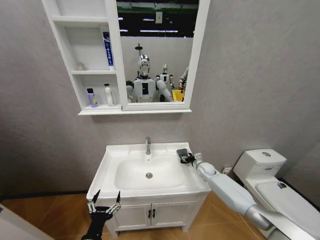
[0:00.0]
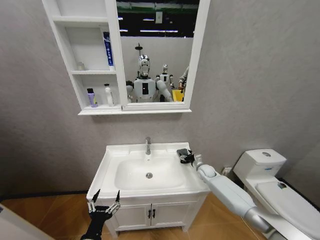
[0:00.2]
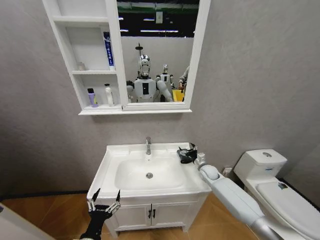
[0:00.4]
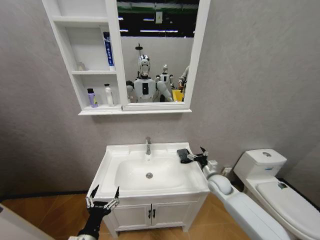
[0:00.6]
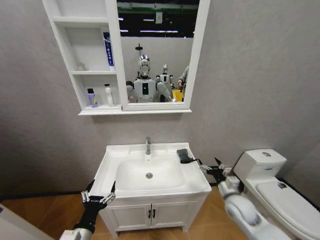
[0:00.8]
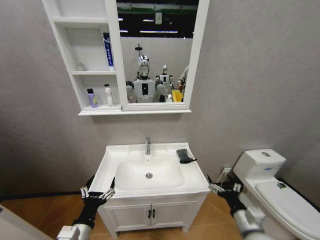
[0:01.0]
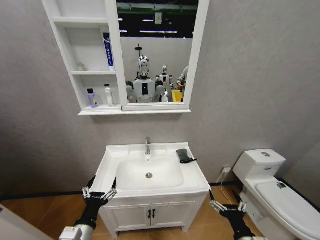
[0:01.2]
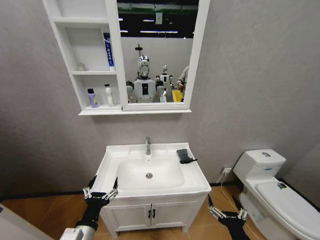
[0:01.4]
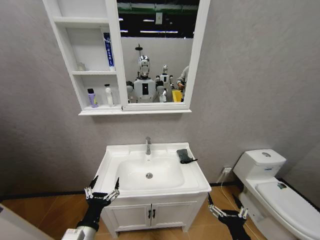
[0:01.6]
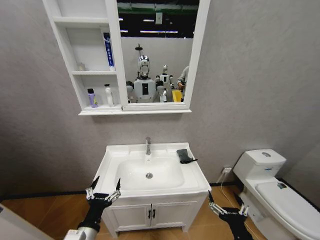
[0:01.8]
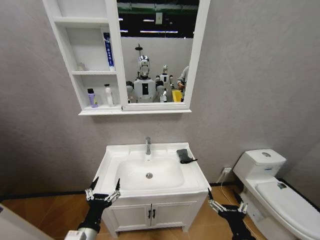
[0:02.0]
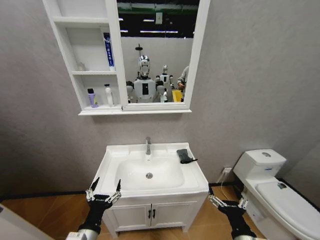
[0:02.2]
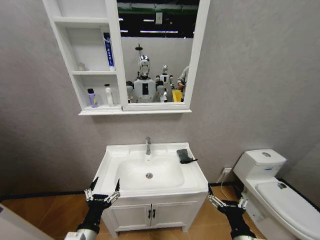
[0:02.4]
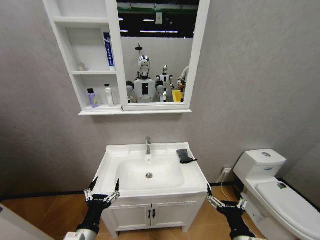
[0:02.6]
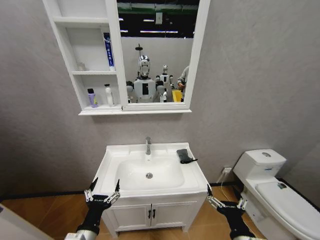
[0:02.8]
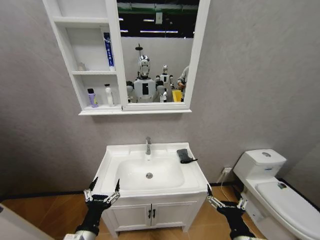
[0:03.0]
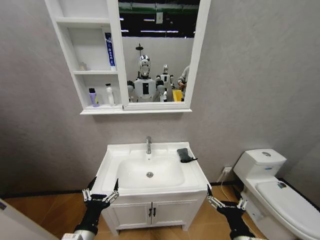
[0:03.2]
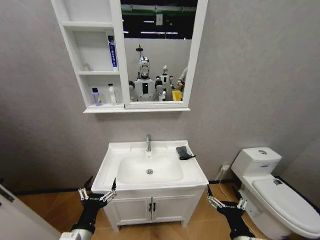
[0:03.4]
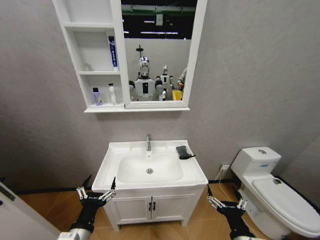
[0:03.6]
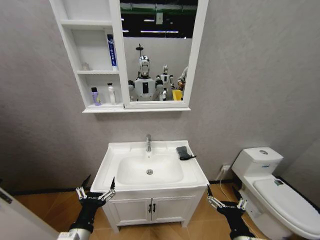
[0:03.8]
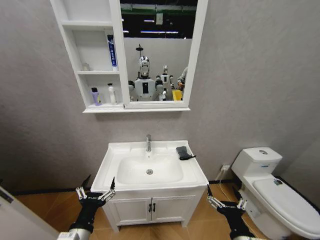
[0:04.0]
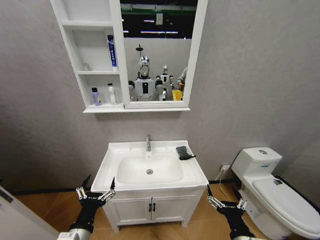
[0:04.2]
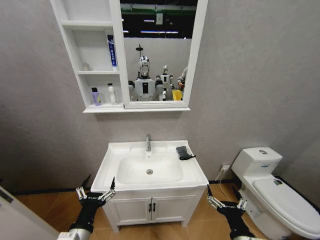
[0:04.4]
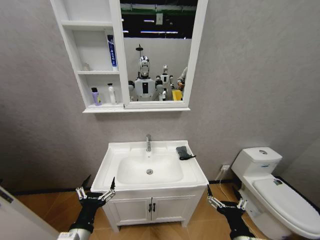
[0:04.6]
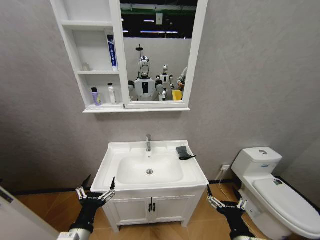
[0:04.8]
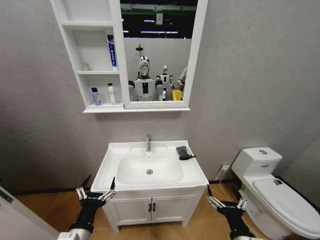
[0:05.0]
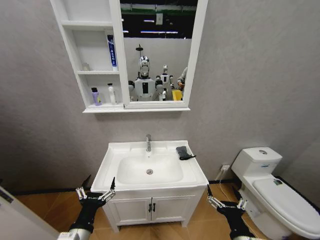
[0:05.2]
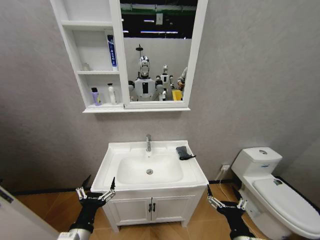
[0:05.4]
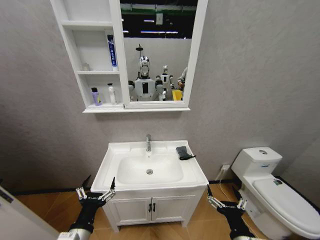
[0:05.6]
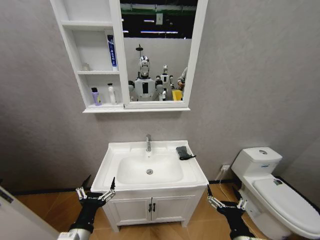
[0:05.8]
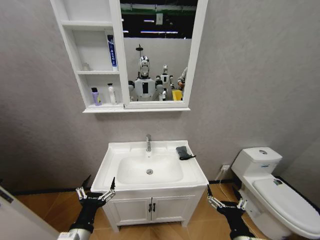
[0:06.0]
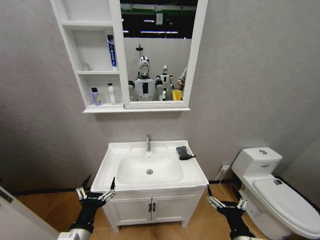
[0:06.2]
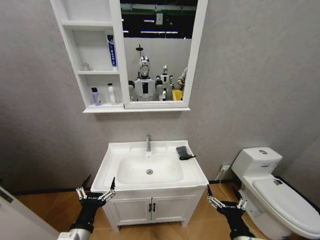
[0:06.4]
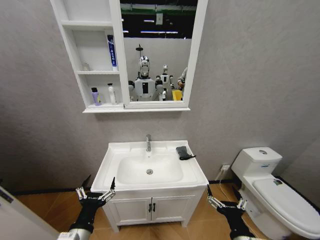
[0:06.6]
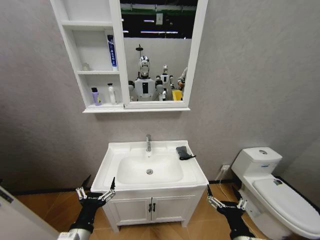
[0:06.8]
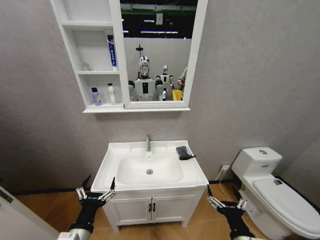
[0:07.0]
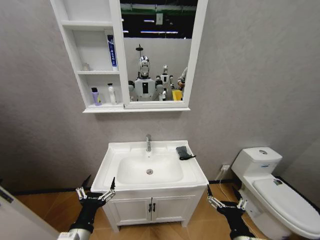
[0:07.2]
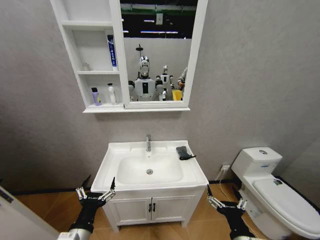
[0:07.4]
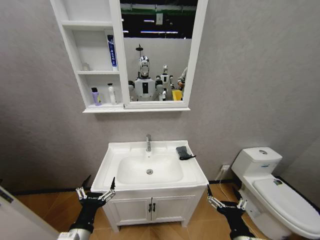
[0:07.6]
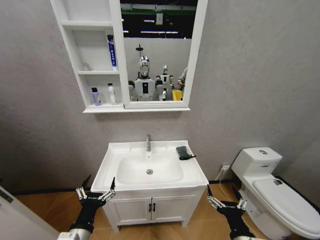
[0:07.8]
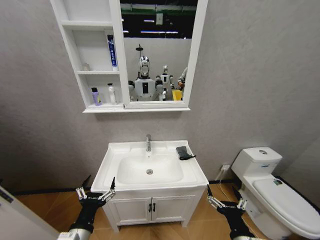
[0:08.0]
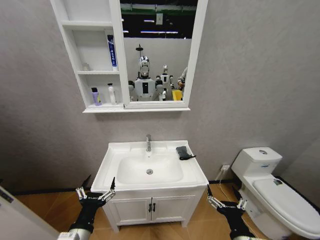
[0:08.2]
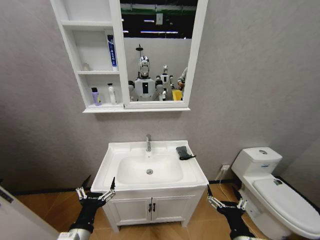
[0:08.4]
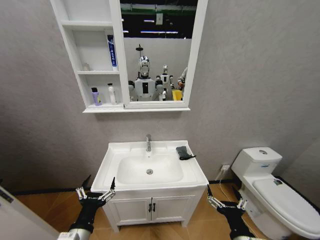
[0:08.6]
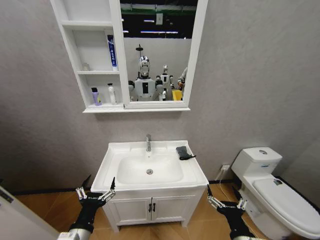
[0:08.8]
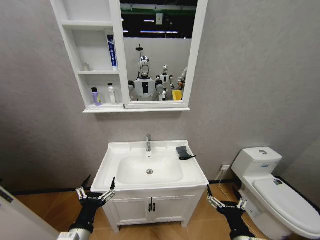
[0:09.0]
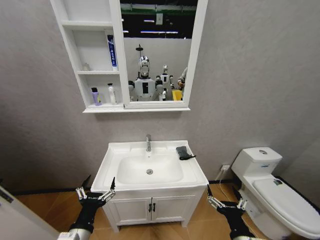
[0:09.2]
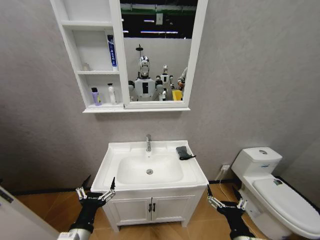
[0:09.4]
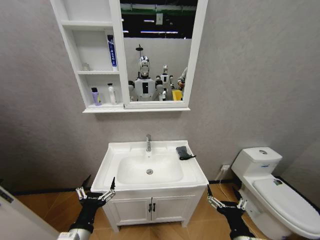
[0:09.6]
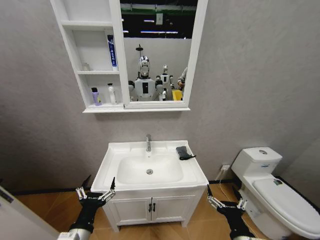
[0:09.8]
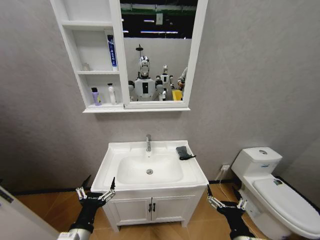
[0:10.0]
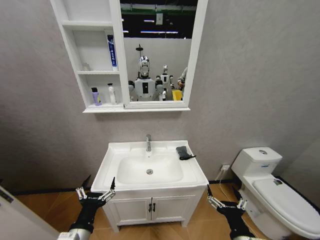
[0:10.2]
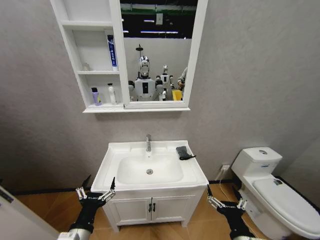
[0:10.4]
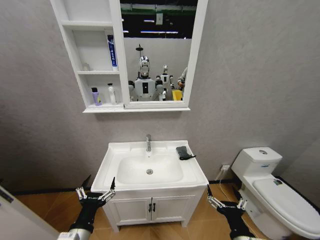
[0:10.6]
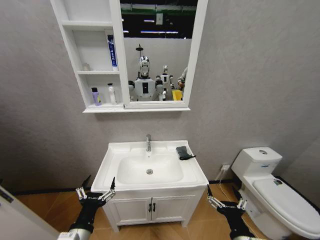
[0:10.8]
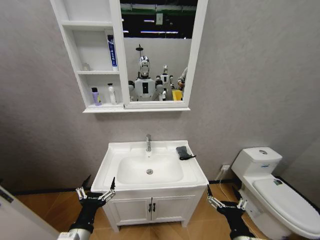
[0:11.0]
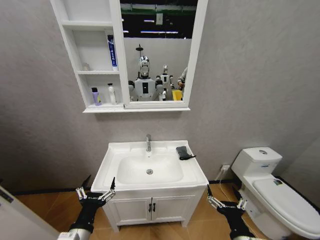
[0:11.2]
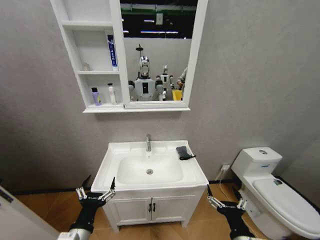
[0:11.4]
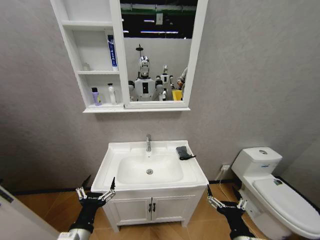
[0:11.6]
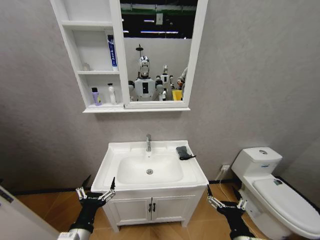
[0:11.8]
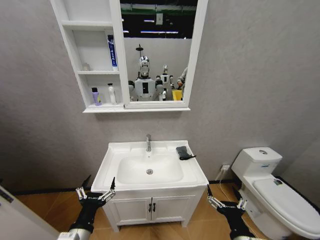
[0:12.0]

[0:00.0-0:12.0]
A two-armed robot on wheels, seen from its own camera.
Task of the whole recording: Move facial cleanser and shampoo from washbasin to cabinet, then wipe washbasin with towel.
0:00.0 to 0:01.6: The right gripper travels backward by some 40 cm, and opens, while the left gripper moves roughly 5 cm.
0:01.6 to 0:04.4: The grippers move only a little.
0:04.4 to 0:12.0: Both grippers stay put.

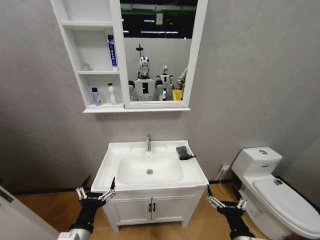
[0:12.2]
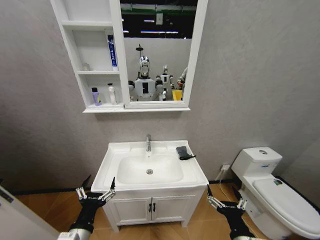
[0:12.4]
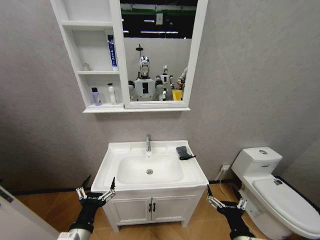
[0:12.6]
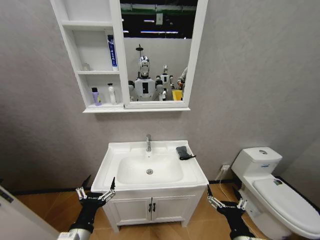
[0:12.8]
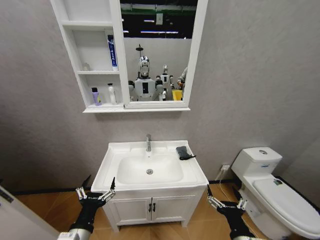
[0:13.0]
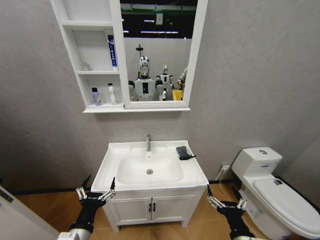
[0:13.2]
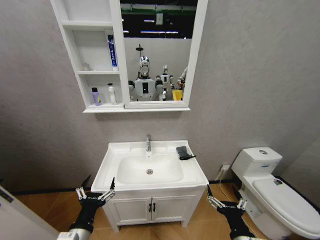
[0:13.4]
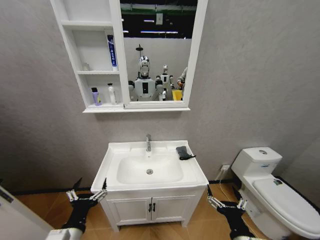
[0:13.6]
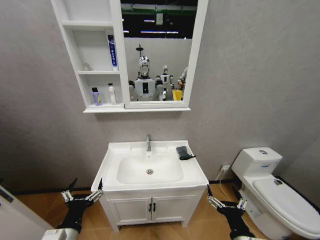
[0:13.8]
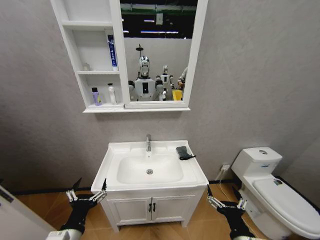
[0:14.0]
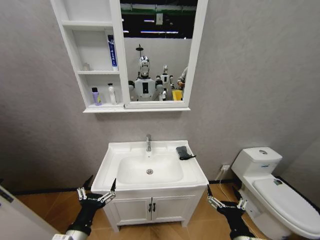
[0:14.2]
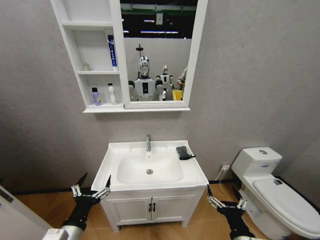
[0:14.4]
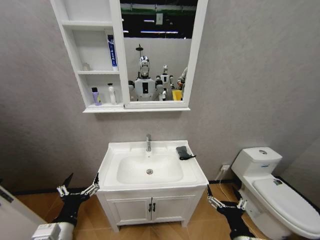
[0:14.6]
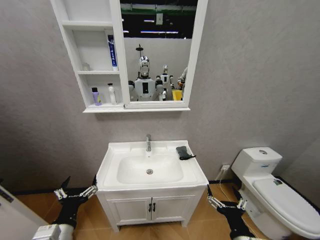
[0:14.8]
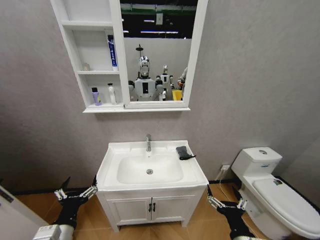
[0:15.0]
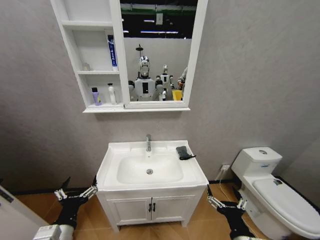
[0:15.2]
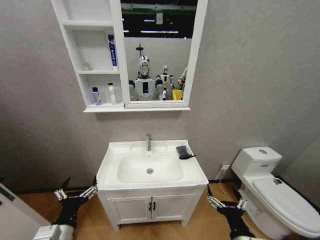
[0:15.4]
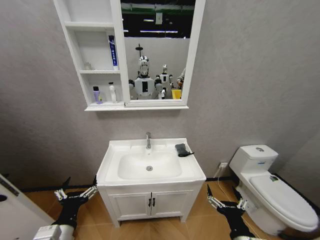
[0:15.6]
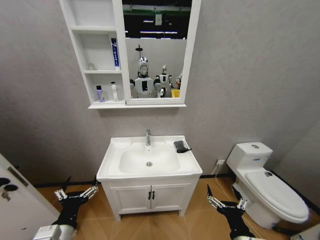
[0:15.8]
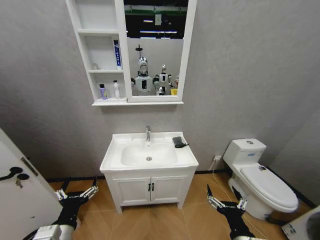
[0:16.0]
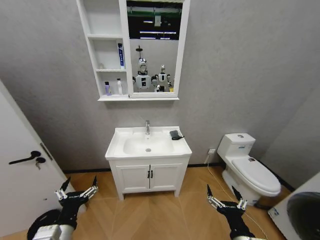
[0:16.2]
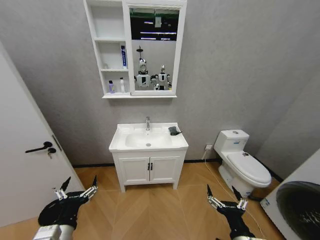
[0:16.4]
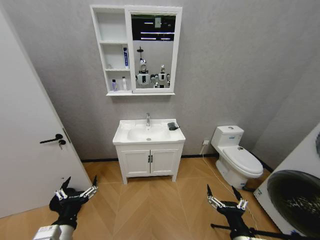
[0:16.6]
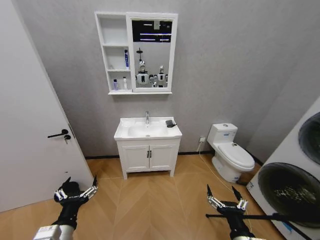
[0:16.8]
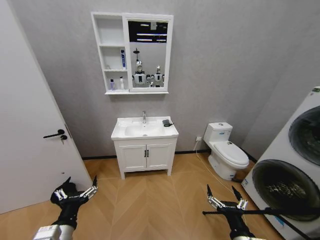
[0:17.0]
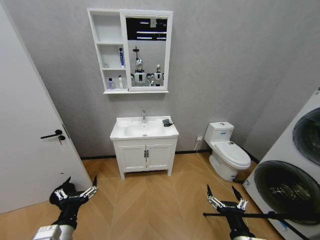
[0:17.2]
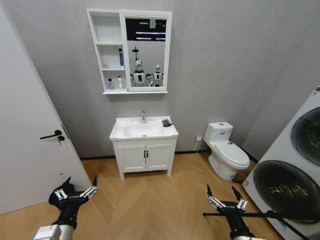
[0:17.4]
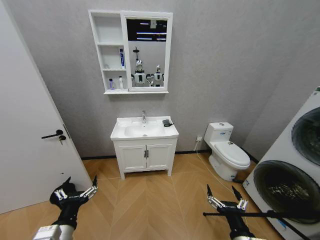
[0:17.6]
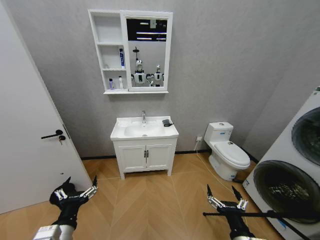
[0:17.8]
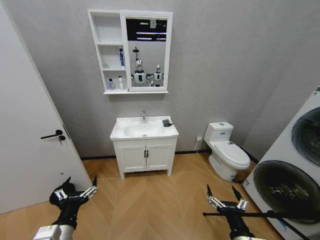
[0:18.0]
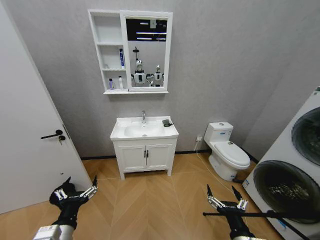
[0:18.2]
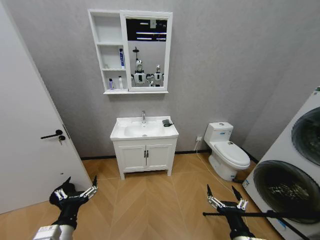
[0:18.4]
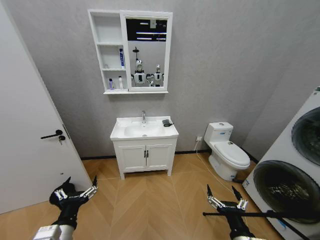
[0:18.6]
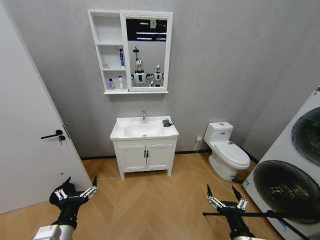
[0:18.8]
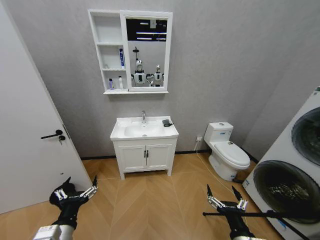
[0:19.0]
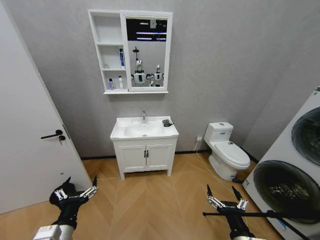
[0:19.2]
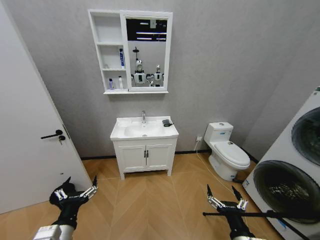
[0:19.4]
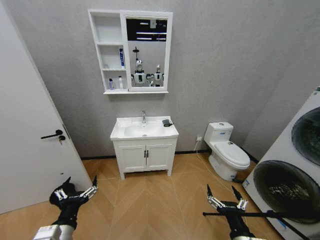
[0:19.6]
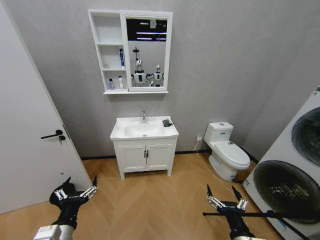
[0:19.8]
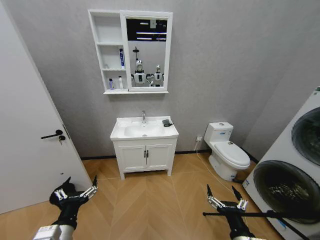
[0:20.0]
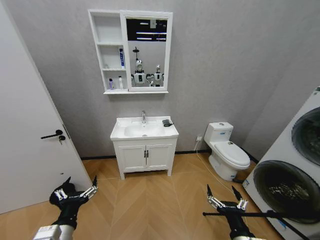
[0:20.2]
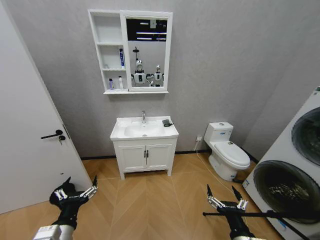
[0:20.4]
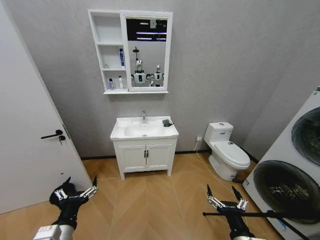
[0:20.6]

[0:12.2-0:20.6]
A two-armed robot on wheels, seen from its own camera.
Task of the whole recording: Move facial cleanser and shampoo from washbasin to cabinet, then wipe washbasin with towel.
0:12.2 to 0:15.0: The grippers stay close to where they were, moving slightly.
0:17.8 to 0:20.6: The two grippers keep their place.

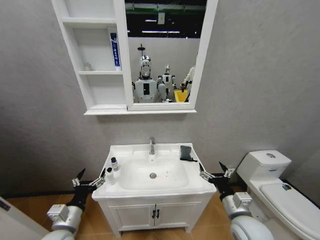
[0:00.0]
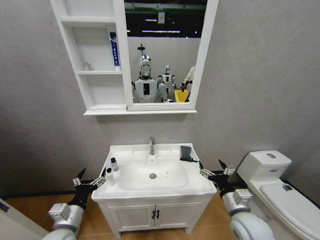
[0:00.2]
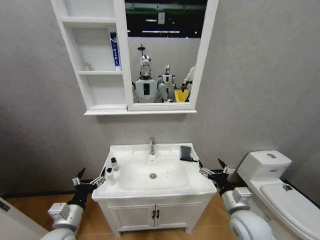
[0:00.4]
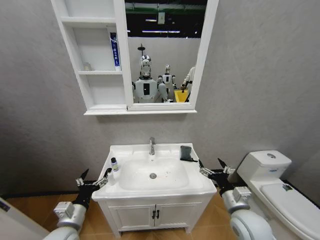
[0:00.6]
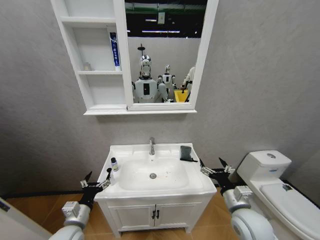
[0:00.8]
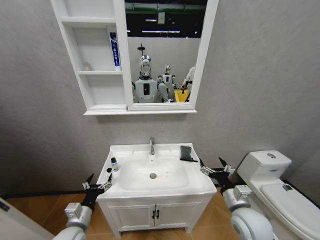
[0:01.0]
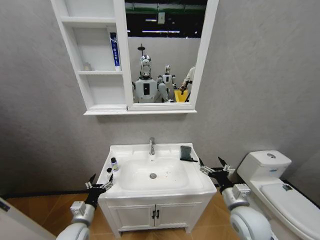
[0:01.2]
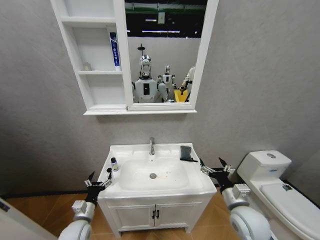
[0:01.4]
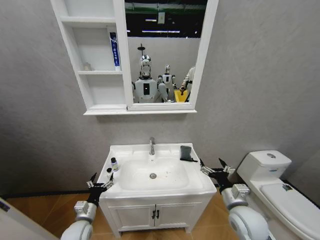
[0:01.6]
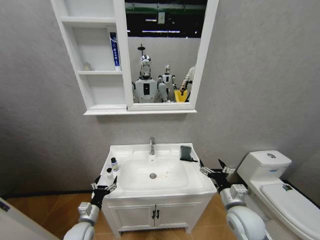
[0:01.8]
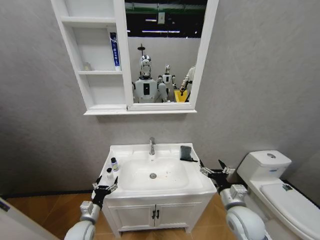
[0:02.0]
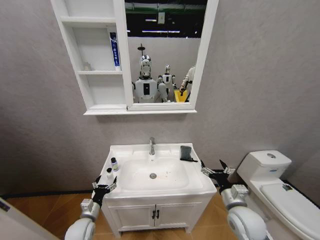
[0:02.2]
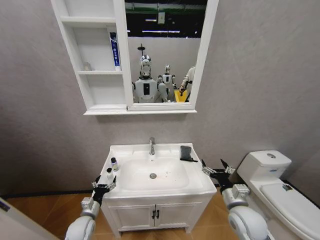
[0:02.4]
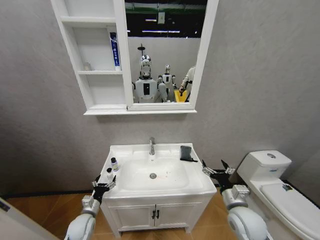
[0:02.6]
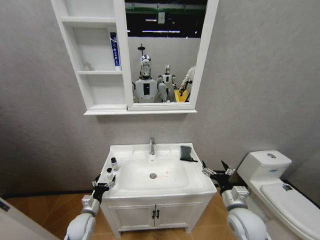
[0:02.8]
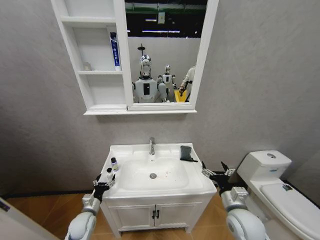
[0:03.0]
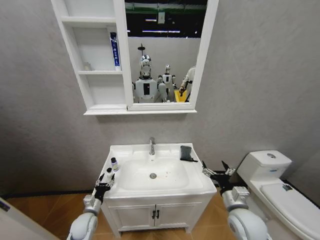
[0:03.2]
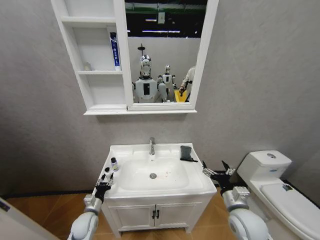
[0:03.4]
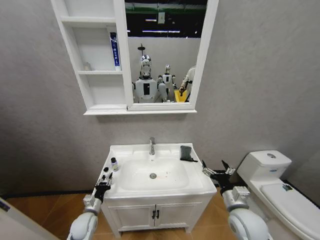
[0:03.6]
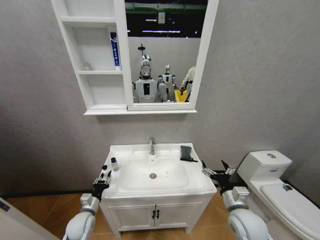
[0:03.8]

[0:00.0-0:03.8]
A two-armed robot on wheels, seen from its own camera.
Task of the whole recording: Move facial cleanser and shampoo from washbasin to cabinet, then wipe washbasin with towel.
0:00.0 to 0:01.2: The left gripper shifts about 5 cm downward.
0:01.2 to 0:02.6: The left gripper heads downward and forward, covering approximately 10 cm.
0:02.6 to 0:03.8: The left gripper closes.
